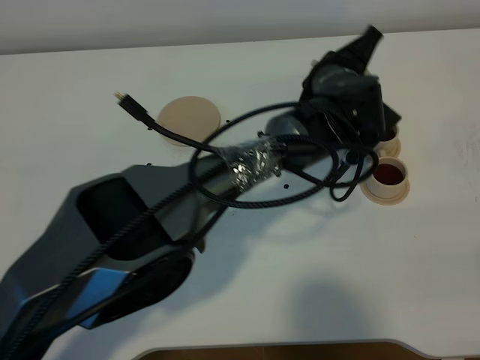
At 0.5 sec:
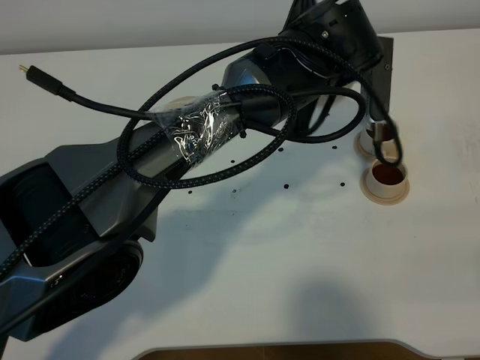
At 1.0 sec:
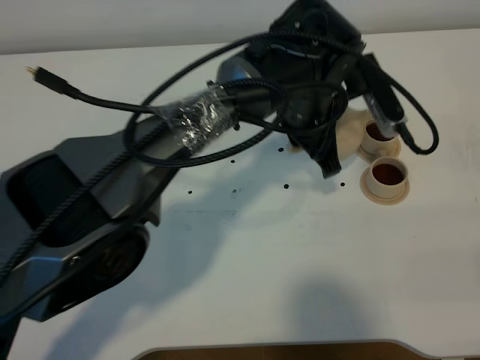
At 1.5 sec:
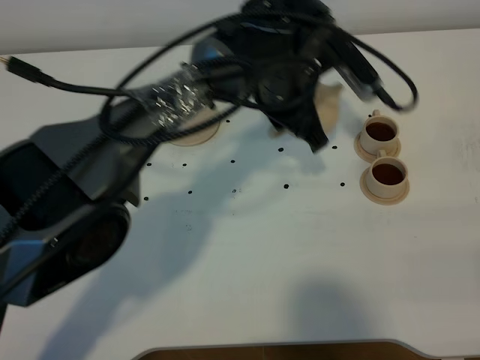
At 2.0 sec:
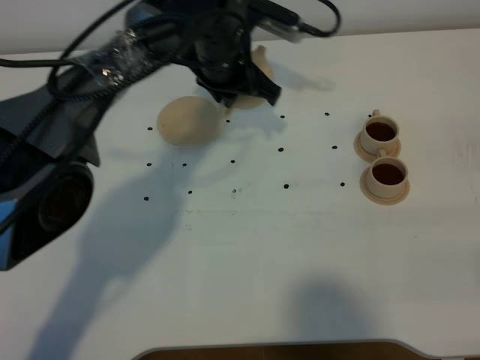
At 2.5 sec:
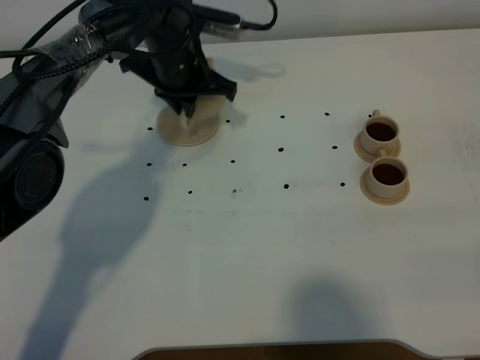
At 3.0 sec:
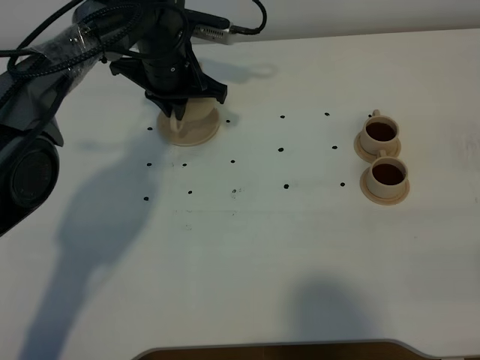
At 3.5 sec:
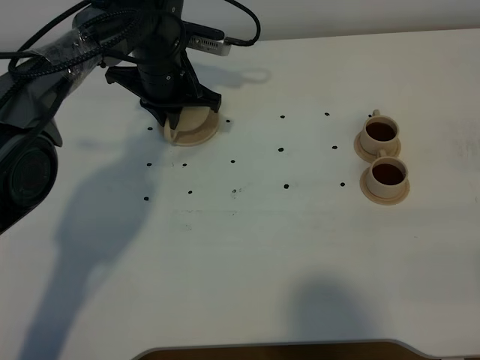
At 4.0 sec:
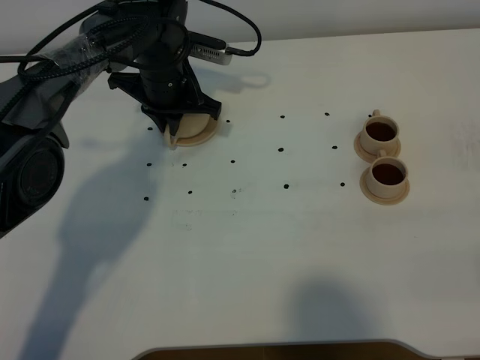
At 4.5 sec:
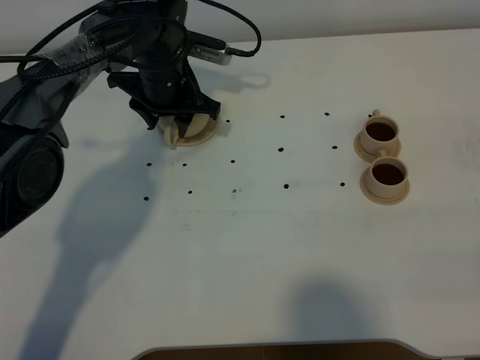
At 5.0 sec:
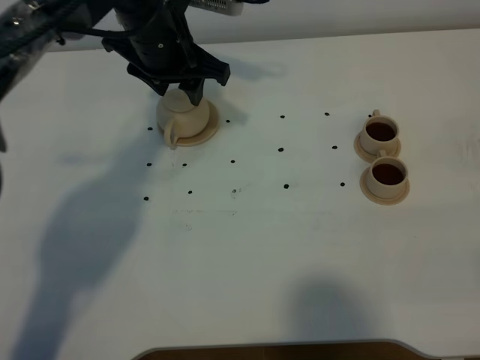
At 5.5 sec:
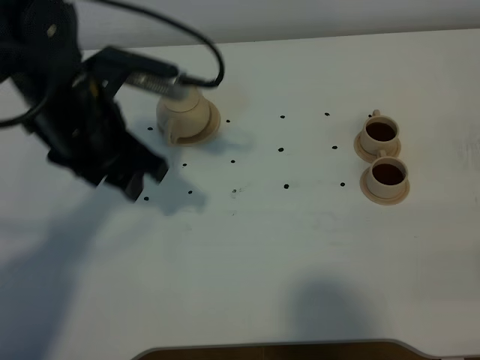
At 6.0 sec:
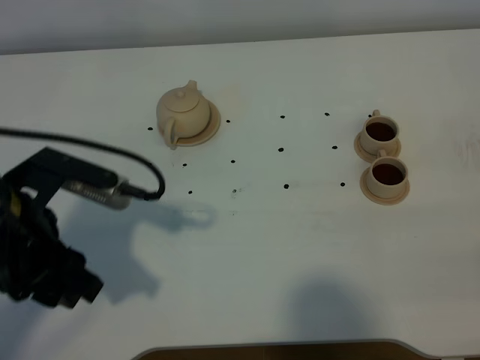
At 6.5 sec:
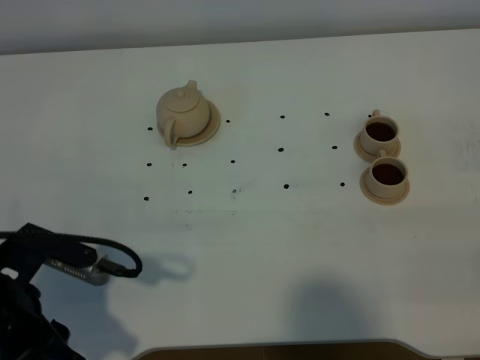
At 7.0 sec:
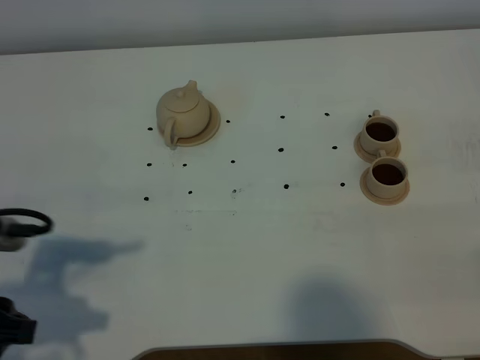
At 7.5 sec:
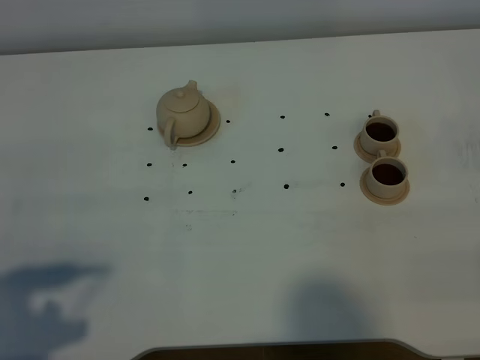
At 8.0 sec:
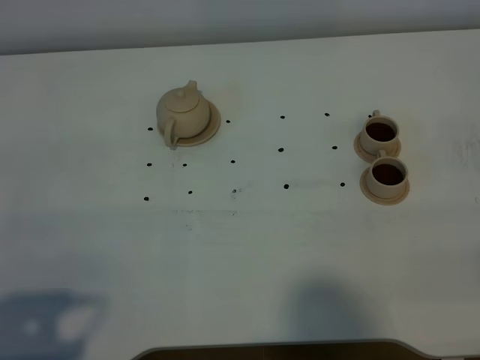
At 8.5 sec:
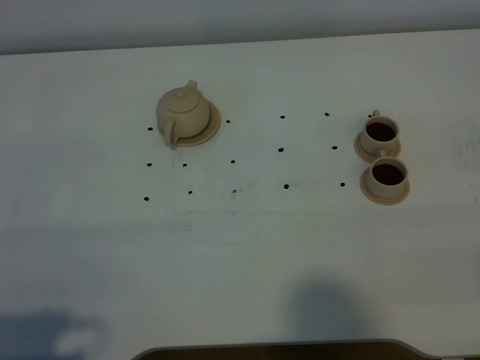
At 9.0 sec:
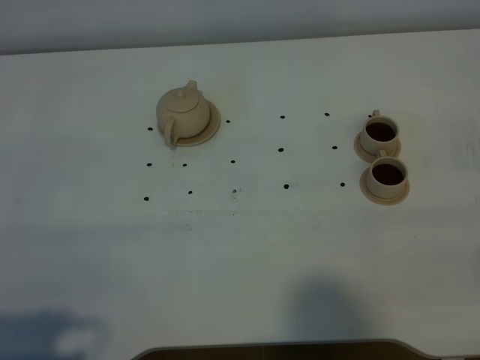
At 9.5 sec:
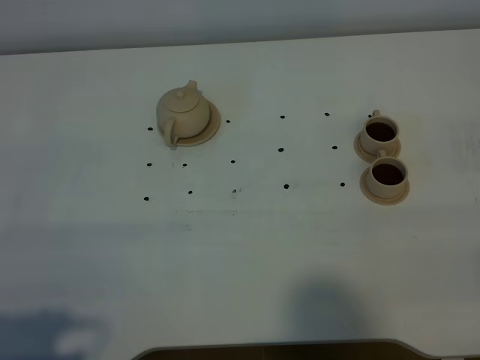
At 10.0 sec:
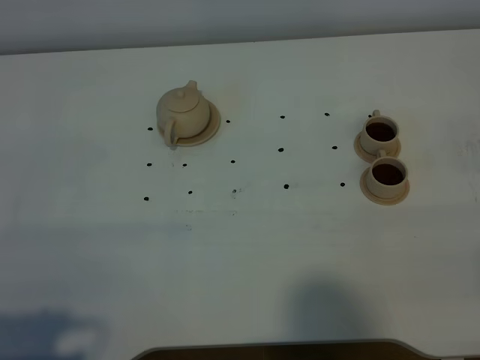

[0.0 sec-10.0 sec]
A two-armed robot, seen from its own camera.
Task of the whole recording: grasp the brown teapot and pour the tea into the two brown teacups one by one, put the brown teapot back in its original place.
0.0 sec to 2.0 sec: The left gripper travels to the left by about 15 cm.
2.0 sec to 4.0 sec: The left gripper heads to the left and downward, covering roughly 10 cm.
4.0 sec to 6.0 sec: The left gripper shifts roughly 30 cm backward, and opens its fingers.
6.0 sec to 8.0 sec: The left gripper goes approximately 20 cm backward and to the left.

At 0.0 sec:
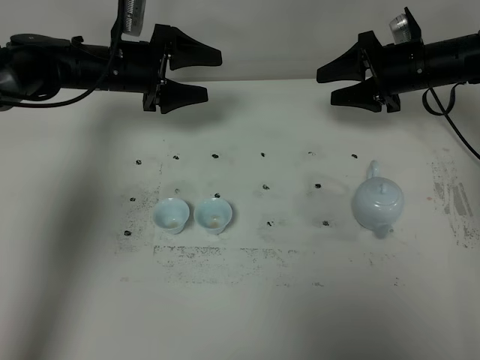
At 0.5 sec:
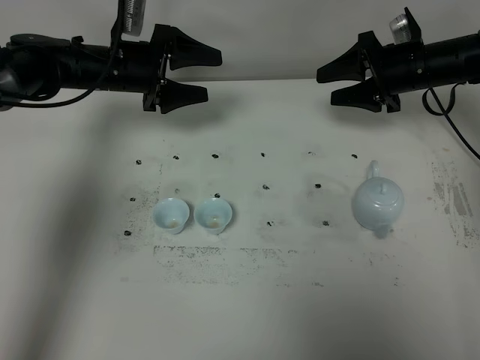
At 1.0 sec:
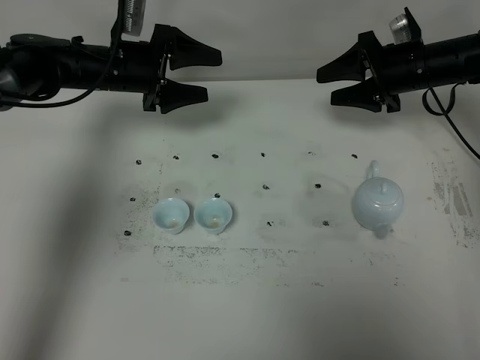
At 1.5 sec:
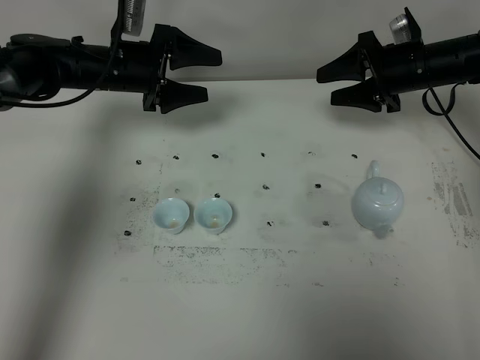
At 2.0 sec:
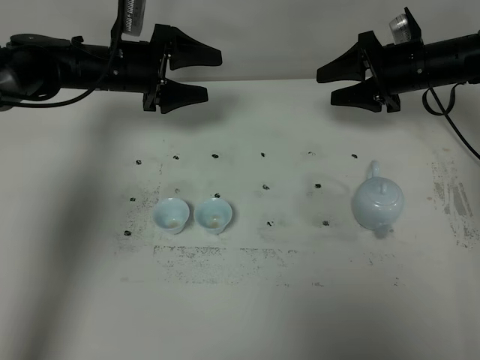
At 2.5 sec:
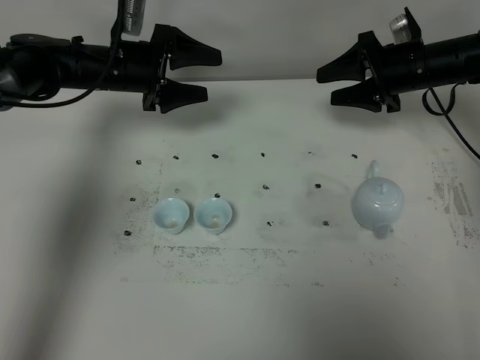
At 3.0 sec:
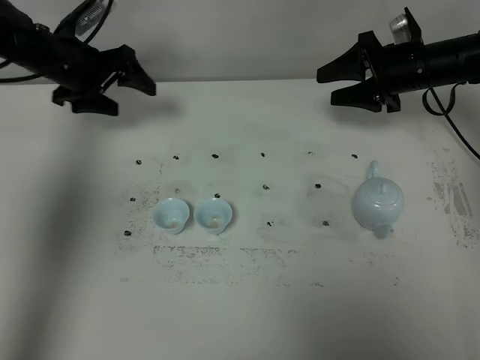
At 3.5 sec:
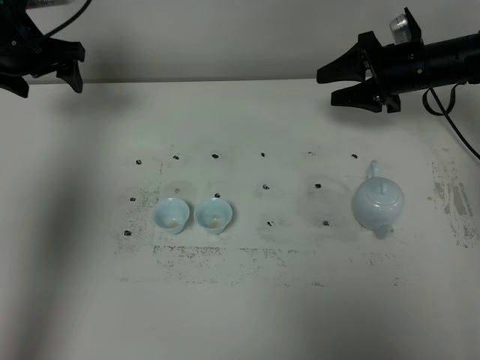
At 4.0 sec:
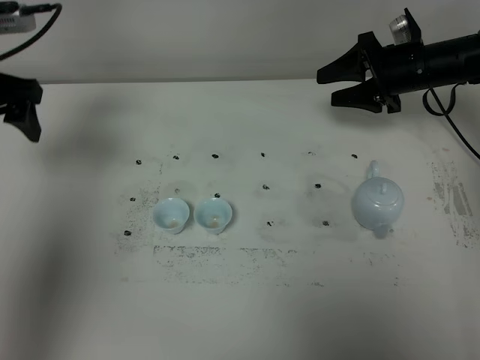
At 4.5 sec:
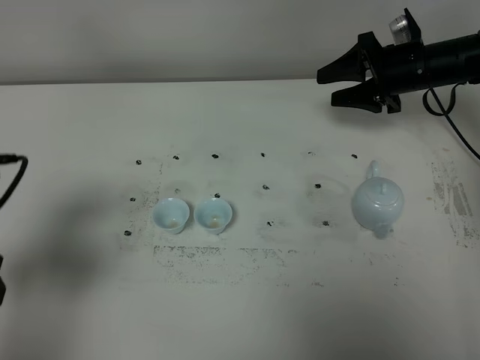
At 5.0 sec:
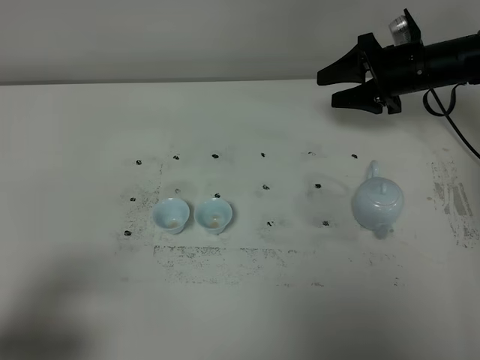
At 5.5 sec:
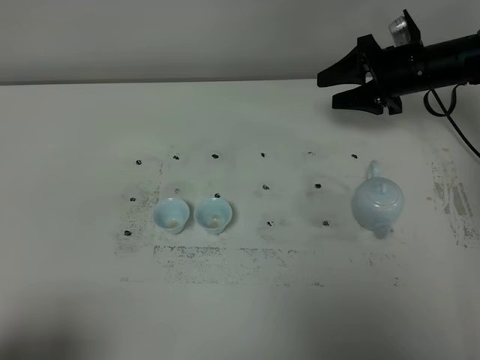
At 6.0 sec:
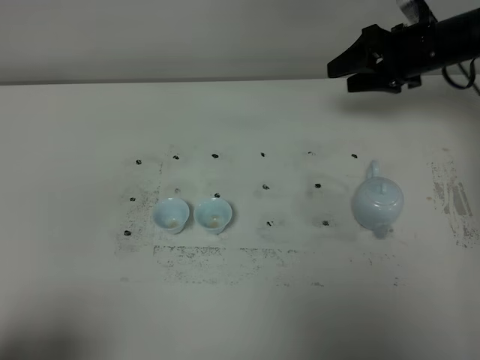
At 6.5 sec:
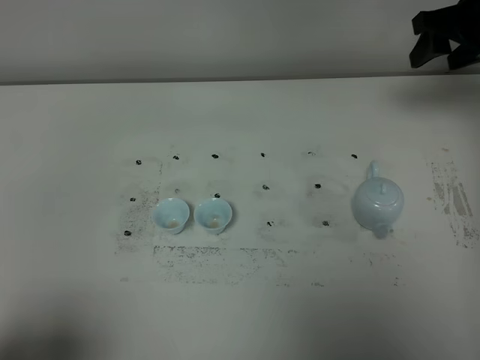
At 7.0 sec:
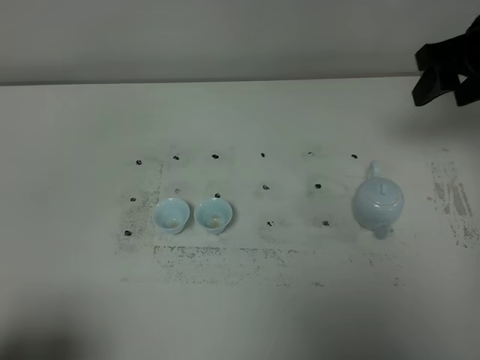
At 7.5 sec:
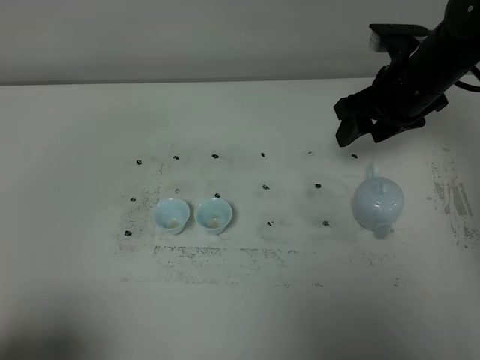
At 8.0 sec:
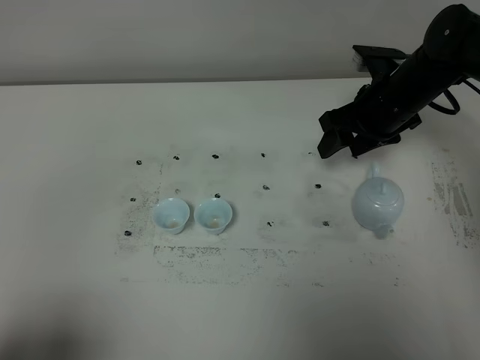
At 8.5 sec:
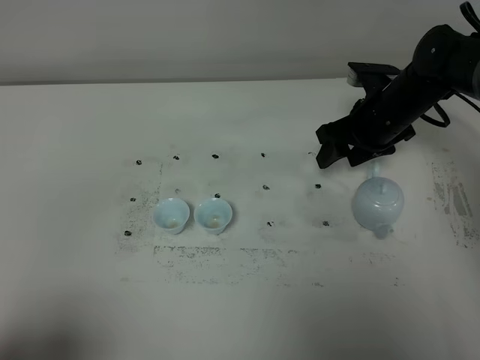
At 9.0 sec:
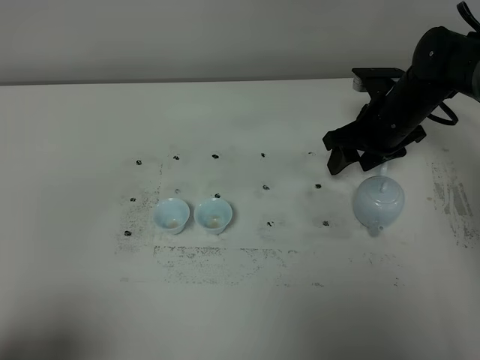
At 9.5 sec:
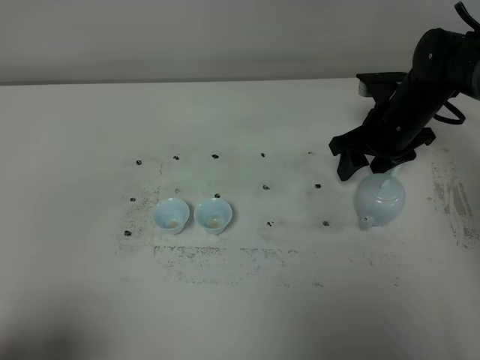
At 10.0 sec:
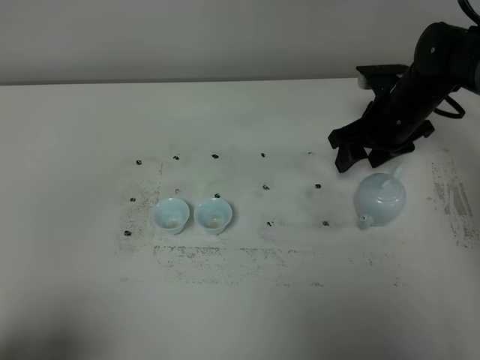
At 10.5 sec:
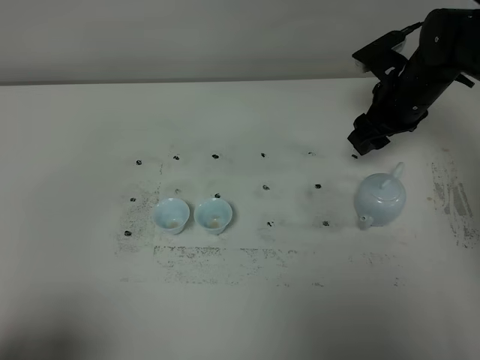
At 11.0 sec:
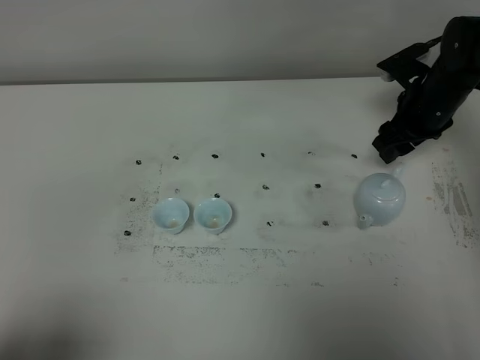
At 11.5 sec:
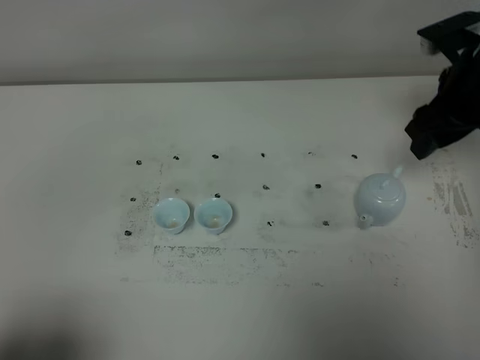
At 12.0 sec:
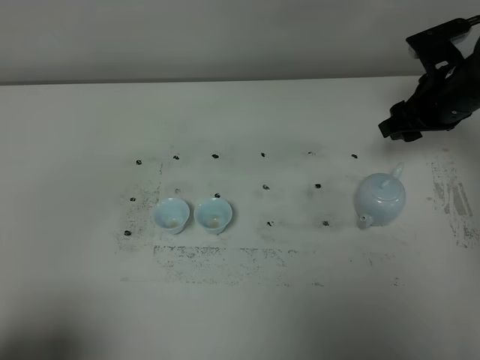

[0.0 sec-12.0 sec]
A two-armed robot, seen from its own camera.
Task of the whole recording: grasp the blue porcelain teapot and pour the tea into the two blue porcelain teacups one by one, put the blue porcelain teapot back in its original place.
0.0 sec to 2.0 sec: The two grippers keep their place.
2.0 sec to 4.0 sec: The left gripper travels backward, to the left and upward by approximately 20 cm.
4.0 sec to 6.0 sec: The left gripper travels backward by approximately 35 cm.
6.0 sec to 8.0 sec: The right gripper moves to the left and backward, some 10 cm, and reaches some 10 cm upward, then returns.
8.0 sec to 10.0 sec: The grippers stay close to where they were, moving slightly.
10.0 sec to 12.0 sec: The right gripper goes about 5 cm to the right, and moves approximately 10 cm upward and comes back.

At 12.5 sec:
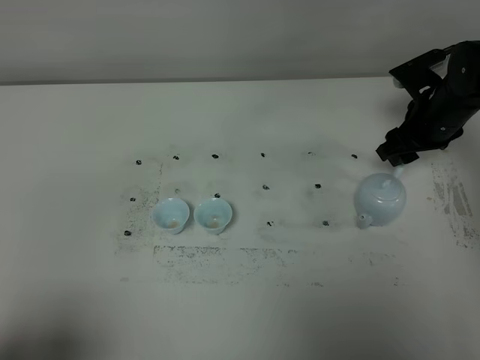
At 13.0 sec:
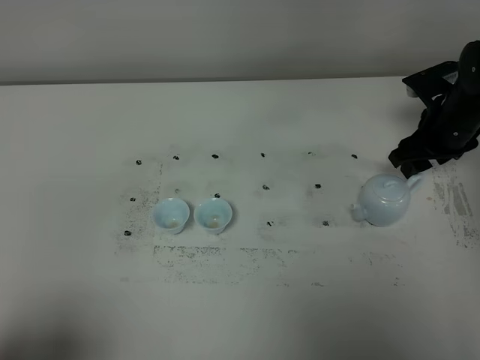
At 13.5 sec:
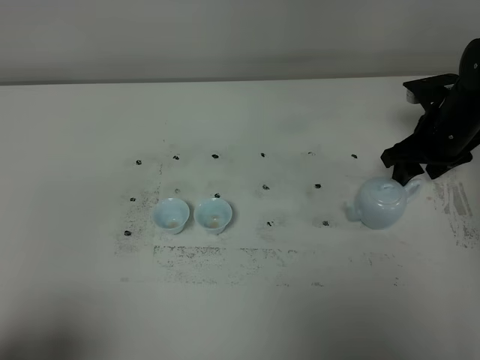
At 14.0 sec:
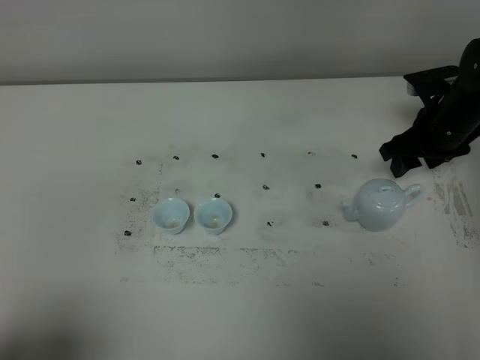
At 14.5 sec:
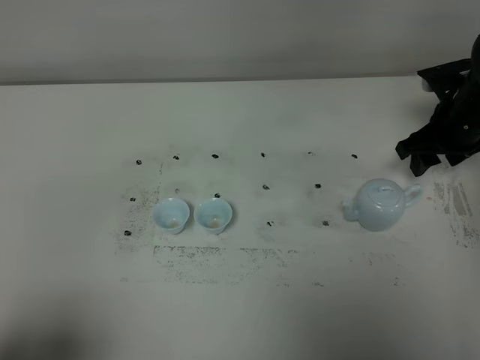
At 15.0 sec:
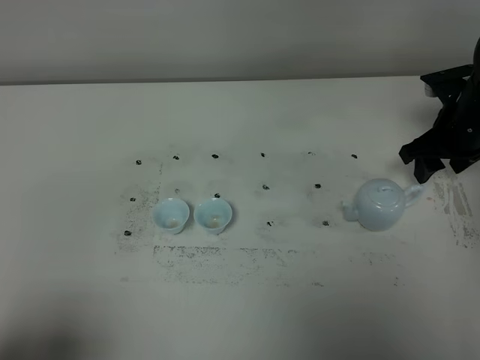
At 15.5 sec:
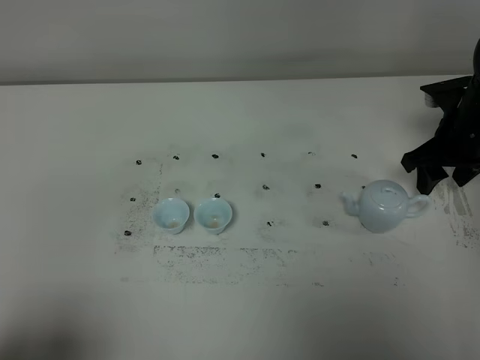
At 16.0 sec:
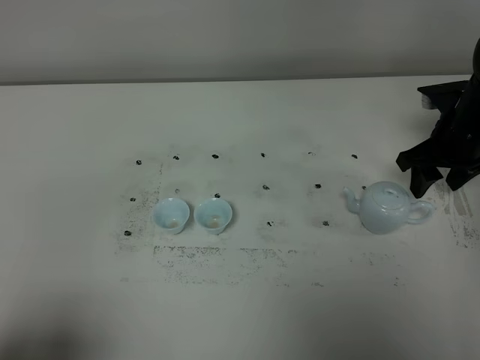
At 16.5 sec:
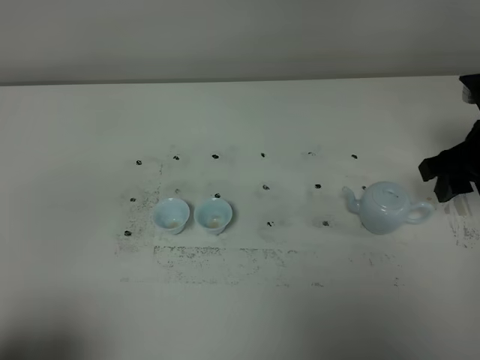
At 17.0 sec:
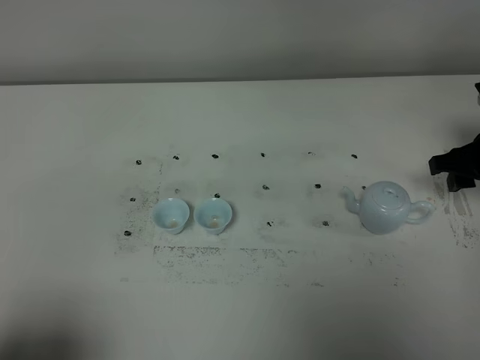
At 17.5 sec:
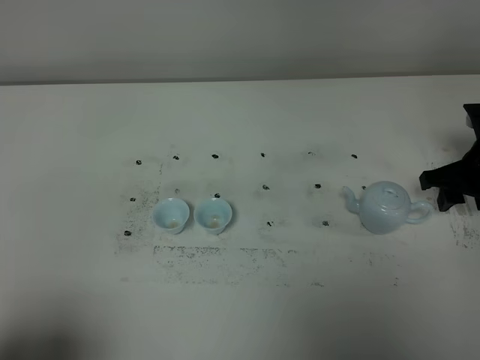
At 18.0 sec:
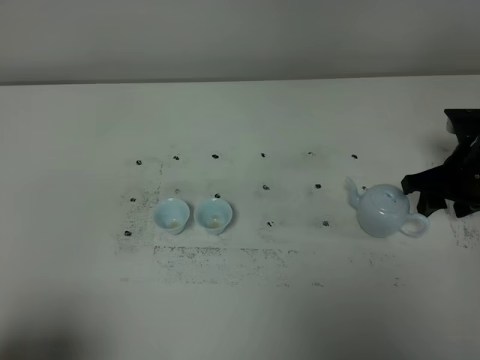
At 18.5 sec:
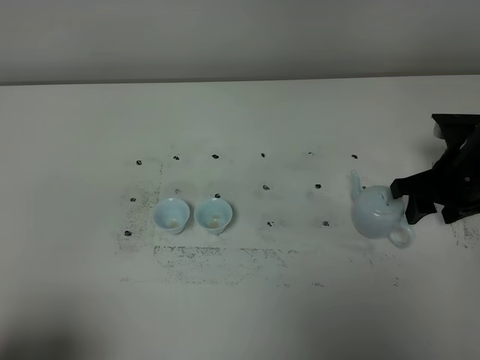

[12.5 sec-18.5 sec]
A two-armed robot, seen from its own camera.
Task of the whole recording: grasp the blue porcelain teapot and pour the tea into the two blue porcelain teacups one by one, put the blue porcelain teapot back in its original place.
12.5 sec to 14.5 sec: The grippers make only small movements.
14.5 sec to 16.5 sec: The right gripper shifts about 10 cm backward and upward.
16.5 sec to 18.5 sec: The right gripper moves downward, some 5 cm.
